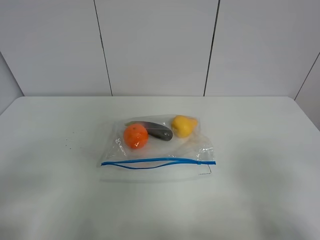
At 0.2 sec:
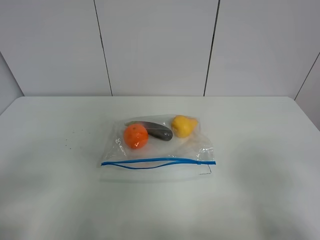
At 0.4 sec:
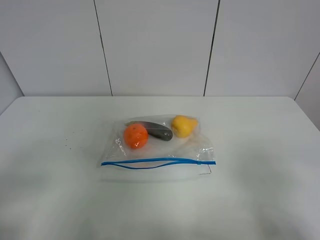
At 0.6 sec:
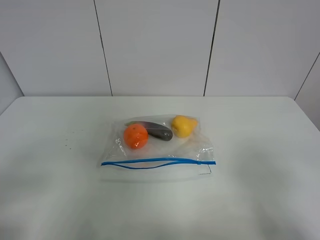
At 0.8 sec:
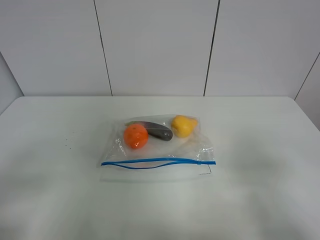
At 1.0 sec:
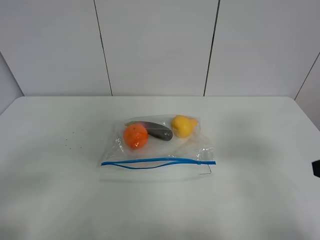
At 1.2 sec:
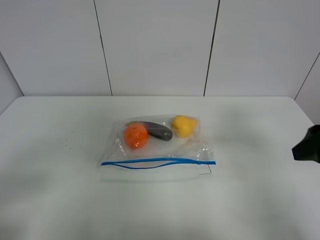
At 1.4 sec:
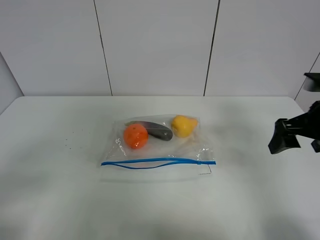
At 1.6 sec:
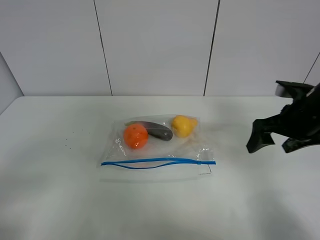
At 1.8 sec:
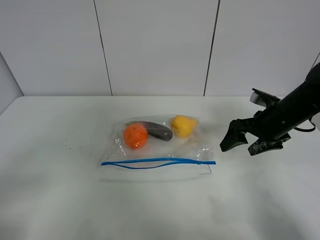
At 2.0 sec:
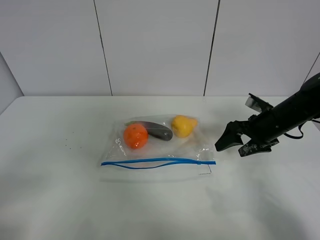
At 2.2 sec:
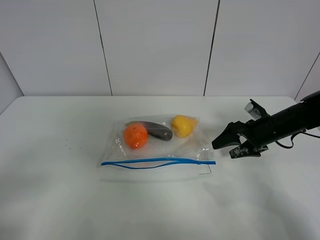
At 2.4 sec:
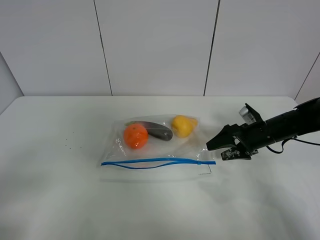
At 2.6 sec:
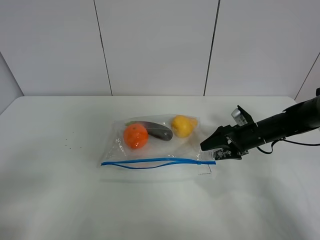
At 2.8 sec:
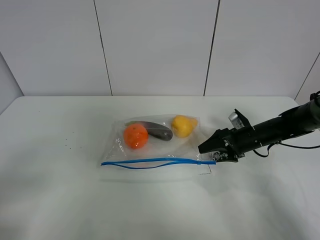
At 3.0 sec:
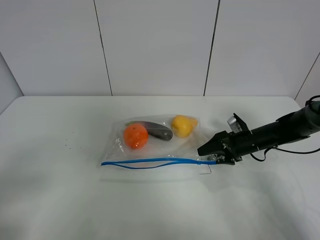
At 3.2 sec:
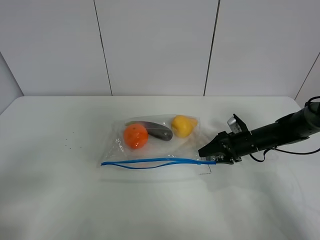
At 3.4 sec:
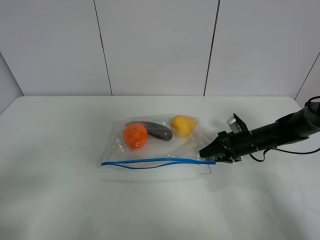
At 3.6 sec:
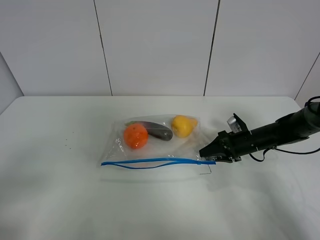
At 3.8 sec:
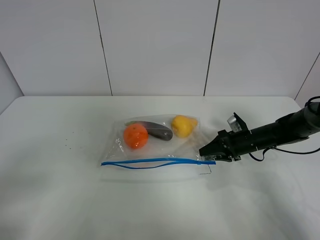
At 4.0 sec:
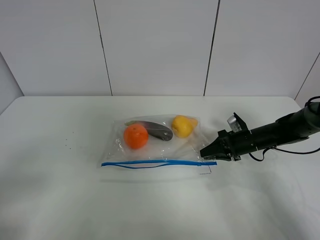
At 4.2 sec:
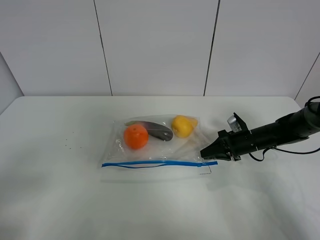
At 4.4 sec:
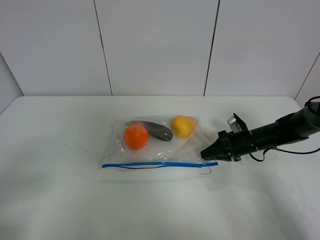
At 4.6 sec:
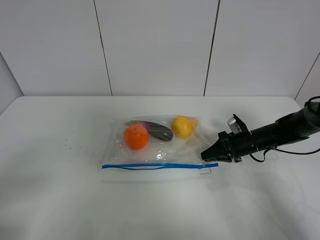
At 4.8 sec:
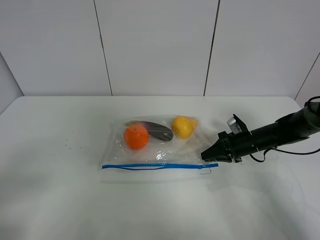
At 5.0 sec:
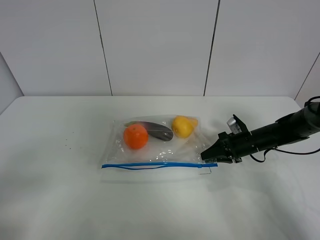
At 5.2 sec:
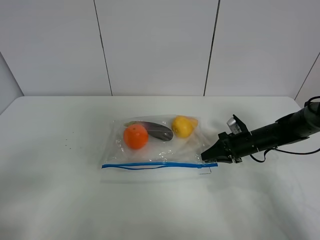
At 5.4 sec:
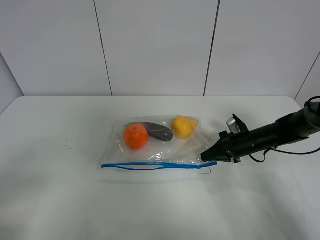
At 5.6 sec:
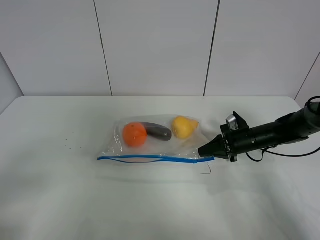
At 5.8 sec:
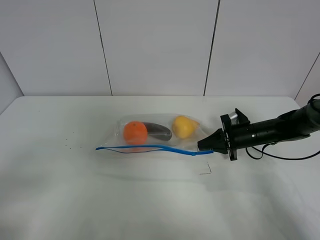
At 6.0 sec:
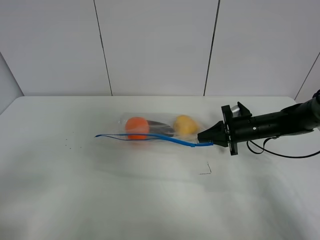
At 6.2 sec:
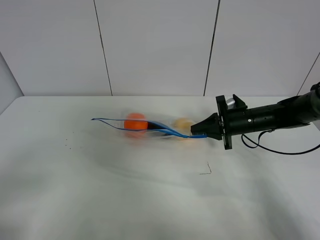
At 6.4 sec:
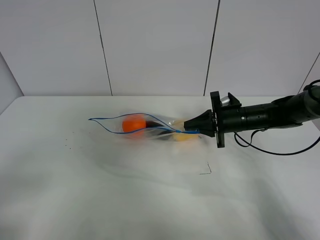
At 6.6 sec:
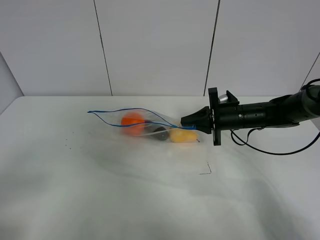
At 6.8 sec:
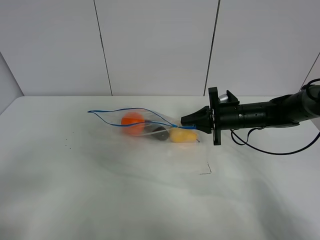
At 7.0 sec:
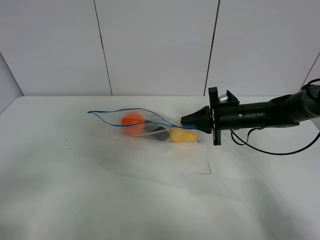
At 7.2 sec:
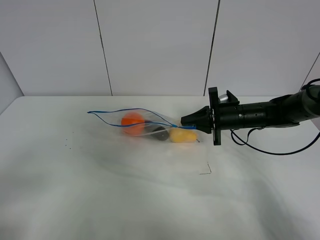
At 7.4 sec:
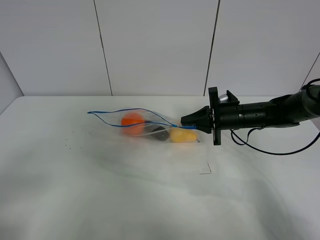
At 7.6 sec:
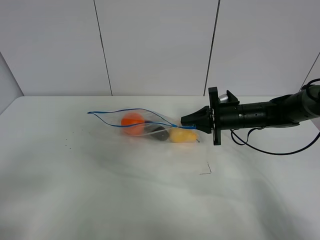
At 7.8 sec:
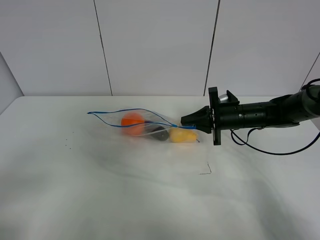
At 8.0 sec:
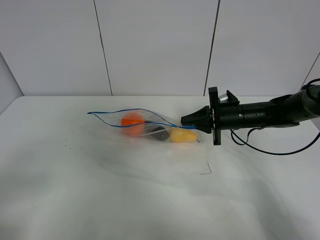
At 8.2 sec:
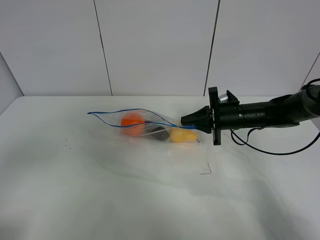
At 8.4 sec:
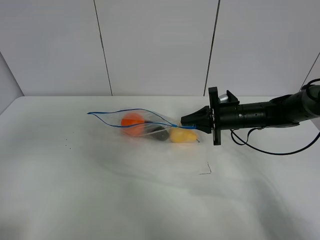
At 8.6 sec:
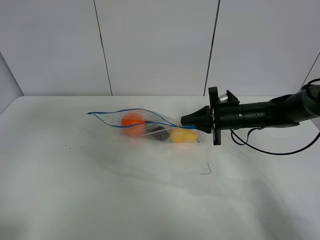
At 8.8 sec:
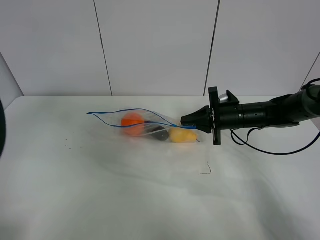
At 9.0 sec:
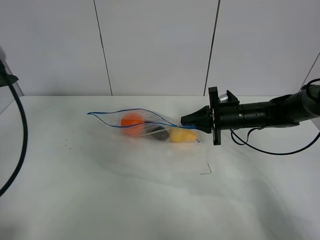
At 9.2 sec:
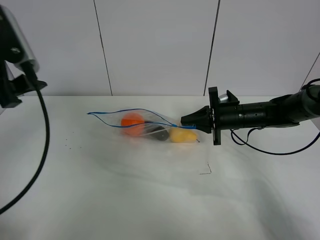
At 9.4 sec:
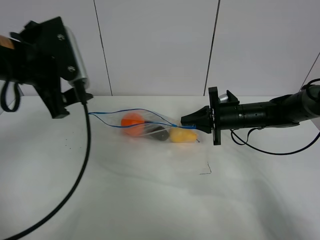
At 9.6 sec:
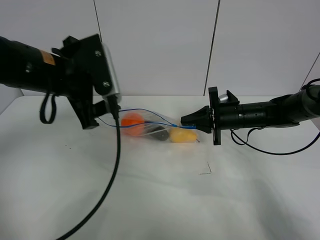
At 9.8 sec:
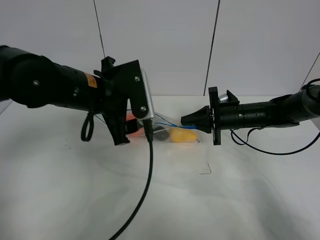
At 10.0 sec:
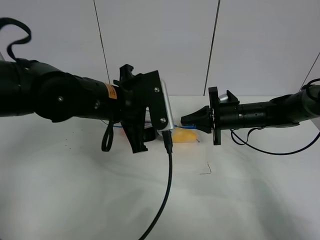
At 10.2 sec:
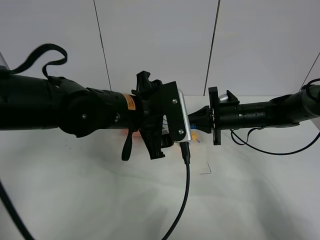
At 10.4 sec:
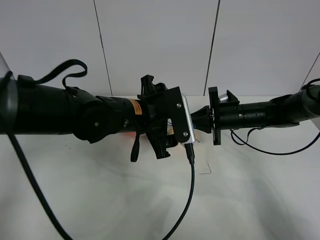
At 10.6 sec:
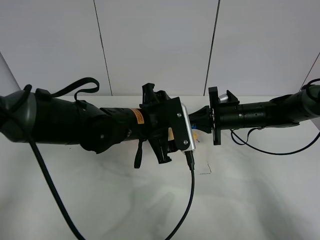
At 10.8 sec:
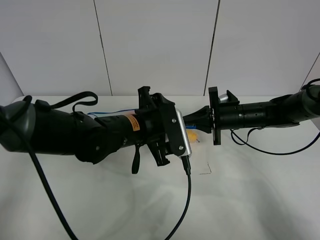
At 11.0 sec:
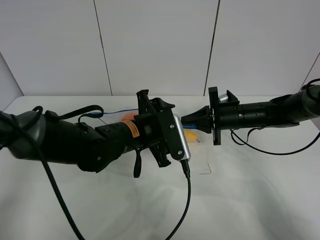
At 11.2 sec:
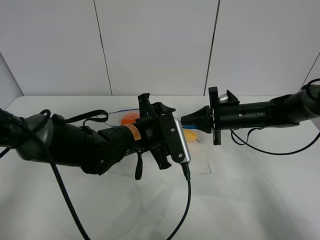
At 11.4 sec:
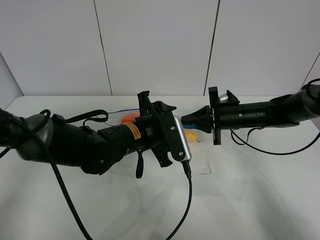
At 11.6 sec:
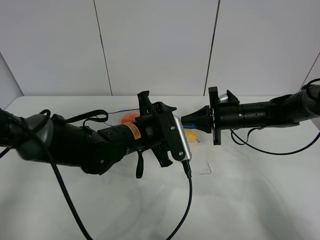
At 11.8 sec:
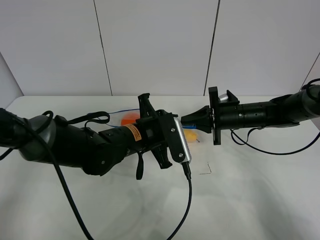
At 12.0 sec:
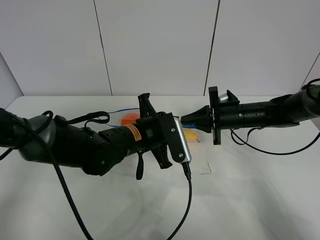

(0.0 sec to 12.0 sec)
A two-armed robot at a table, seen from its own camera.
Step, 0.0 sec - 5.2 sec: Grasp the fruit bag with right gripper.
Step, 5.4 sec - 6.8 sec: Lift the fruit bag with your right gripper.
0.0 sec - 1.6 sec: The right gripper shifts some 30 cm forward.
1.6 sec - 3.0 sec: The right gripper moves downward and forward, about 20 cm.
3.0 sec - 4.4 sec: The right gripper closes up.
4.4 sec - 6.0 sec: The right gripper is displaced upward by roughly 5 cm.
6.0 sec - 7.6 sec: The right gripper ends up roughly 5 cm from where it was.
7.6 sec - 9.0 sec: The left gripper is displaced forward and upward by some 25 cm.
9.0 sec - 10.4 sec: The left gripper goes some 30 cm to the right and downward.
10.4 sec - 12.0 sec: The left gripper closes its fingers.

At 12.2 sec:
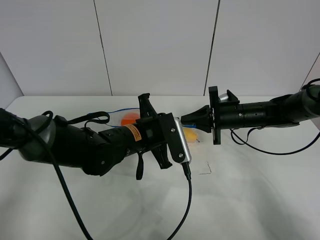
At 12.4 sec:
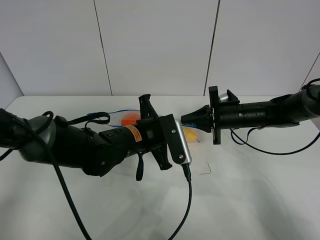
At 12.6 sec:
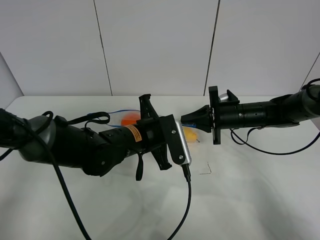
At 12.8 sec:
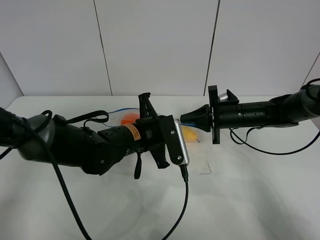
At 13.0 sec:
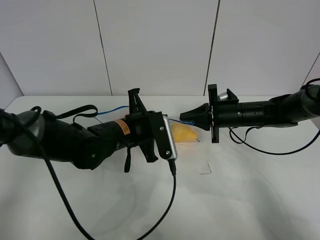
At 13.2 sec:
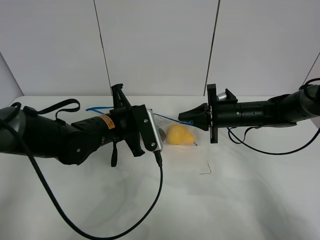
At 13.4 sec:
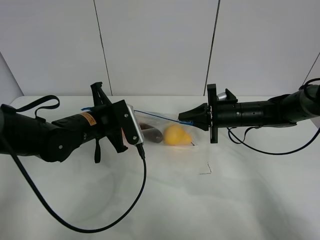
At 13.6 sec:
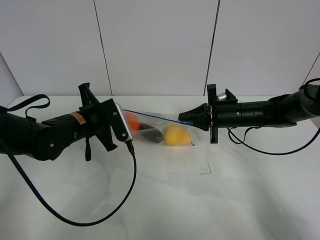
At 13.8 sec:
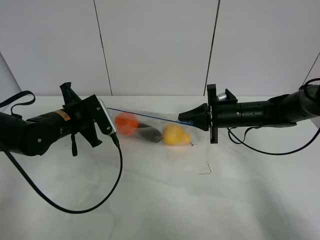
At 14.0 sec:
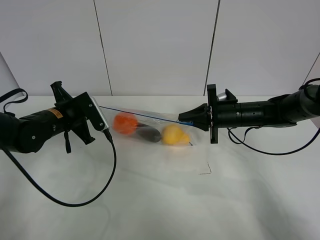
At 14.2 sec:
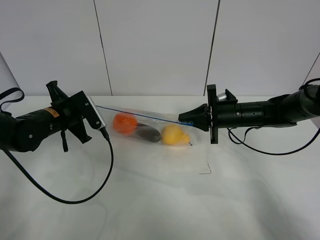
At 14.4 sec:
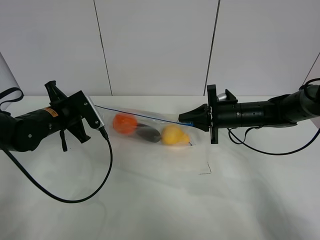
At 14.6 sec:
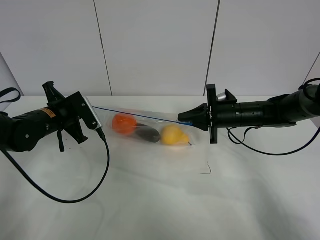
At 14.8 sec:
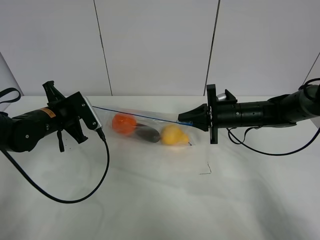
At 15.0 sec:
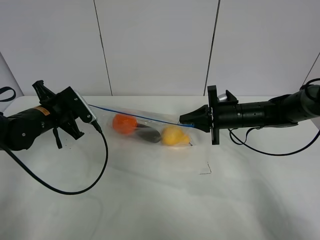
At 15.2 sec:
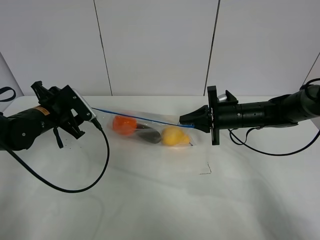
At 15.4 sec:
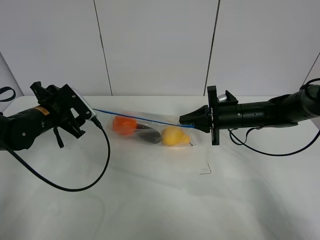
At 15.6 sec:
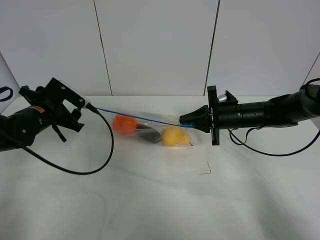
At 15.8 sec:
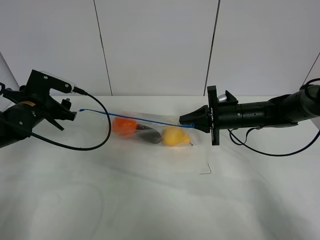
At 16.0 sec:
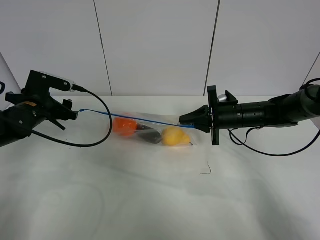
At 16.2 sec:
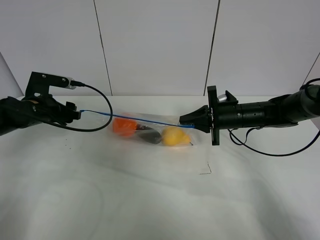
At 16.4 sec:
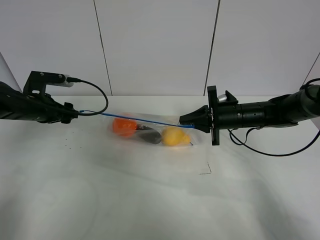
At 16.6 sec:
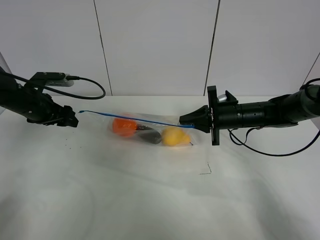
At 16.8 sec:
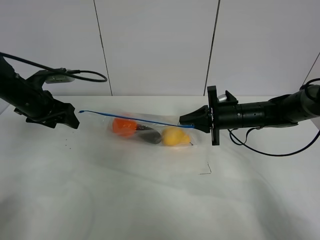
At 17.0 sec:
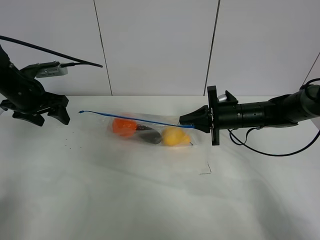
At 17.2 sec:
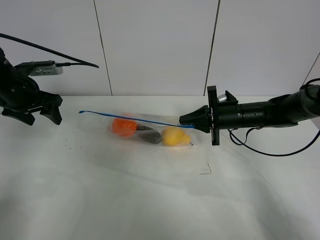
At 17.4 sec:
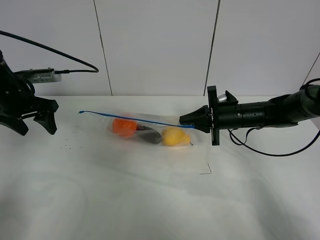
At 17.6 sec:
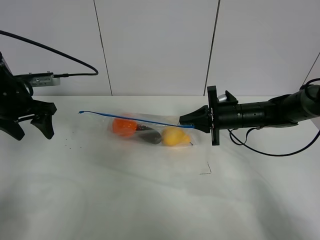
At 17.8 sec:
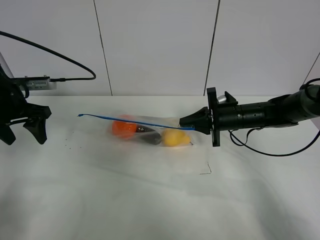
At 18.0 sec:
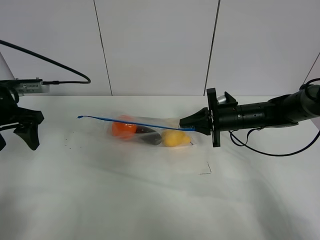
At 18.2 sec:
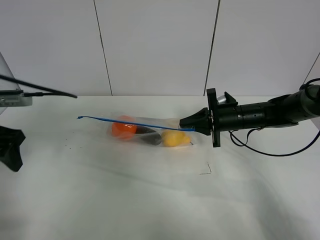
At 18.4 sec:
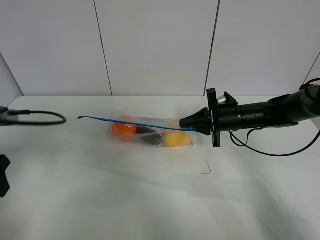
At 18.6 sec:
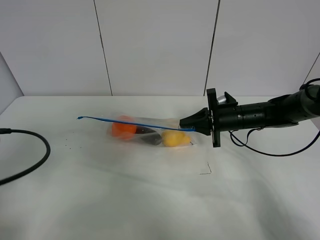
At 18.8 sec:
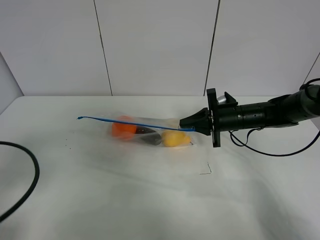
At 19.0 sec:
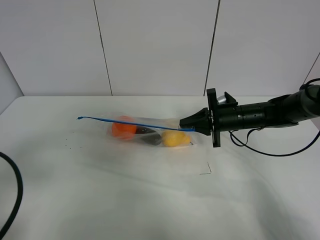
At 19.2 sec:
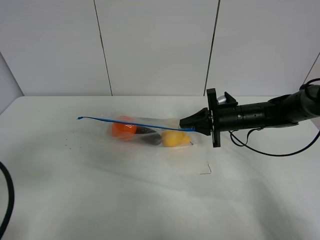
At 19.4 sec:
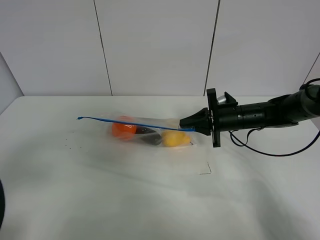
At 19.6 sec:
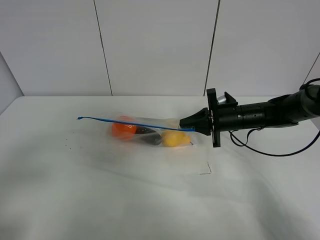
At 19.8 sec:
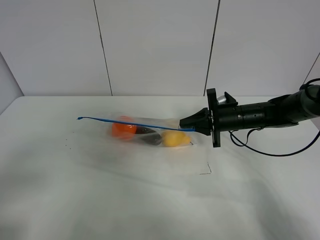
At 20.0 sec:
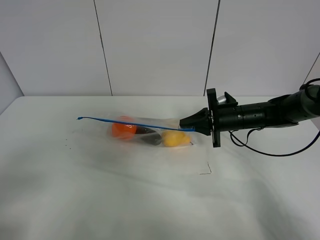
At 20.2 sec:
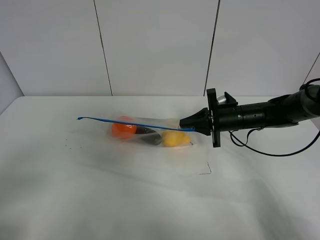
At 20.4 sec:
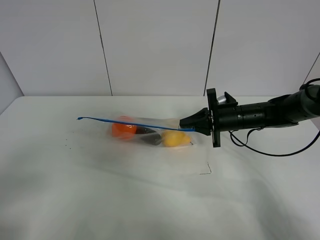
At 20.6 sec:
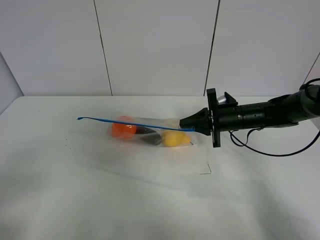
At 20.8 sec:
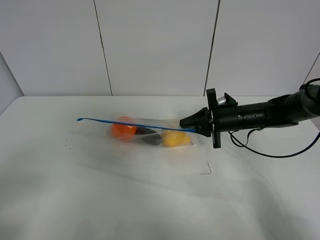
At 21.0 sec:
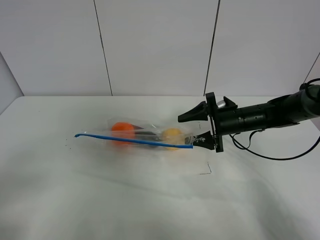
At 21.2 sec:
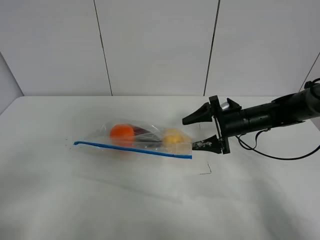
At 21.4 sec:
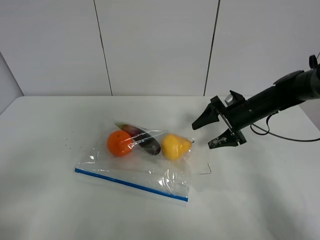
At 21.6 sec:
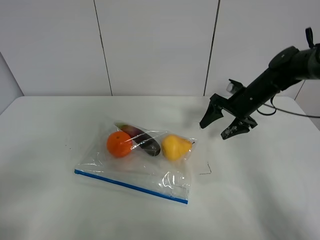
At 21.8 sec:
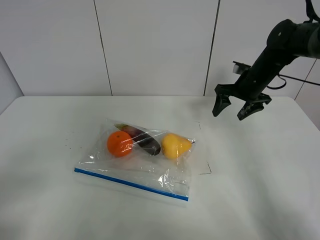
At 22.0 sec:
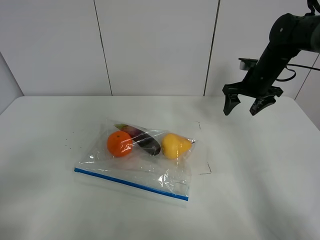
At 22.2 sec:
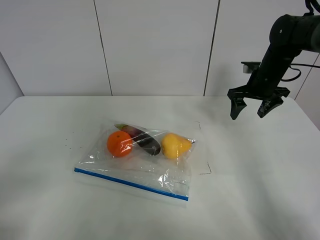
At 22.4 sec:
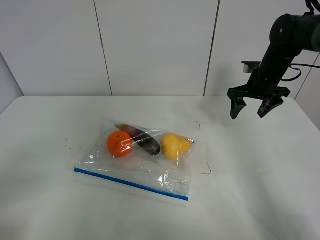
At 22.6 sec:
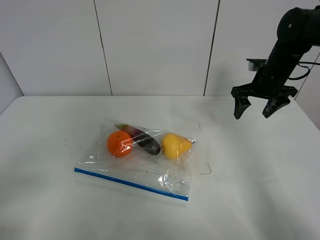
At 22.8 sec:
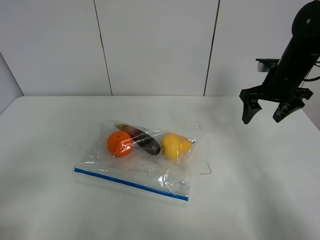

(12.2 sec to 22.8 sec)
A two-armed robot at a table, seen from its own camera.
Step, 12.2 sec - 15.2 sec: Pull the fruit bag with left gripper.
12.2 sec - 13.8 sec: The left gripper shifts about 15 cm to the left.
13.8 sec - 15.2 sec: The left gripper opens up.
15.2 sec - 16.8 sec: The left gripper shifts by roughly 5 cm.
16.8 sec - 18.2 sec: The left gripper goes some 15 cm backward.
18.2 sec - 19.8 sec: The left gripper travels backward by approximately 20 cm.
19.8 sec - 21.2 sec: The right gripper opens its fingers.
21.2 sec - 22.8 sec: The right gripper is displaced upward and to the right by approximately 15 cm.
